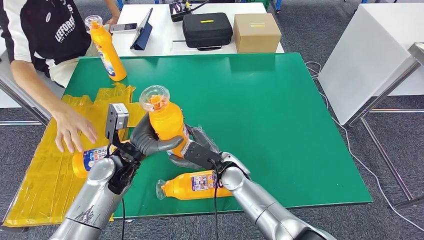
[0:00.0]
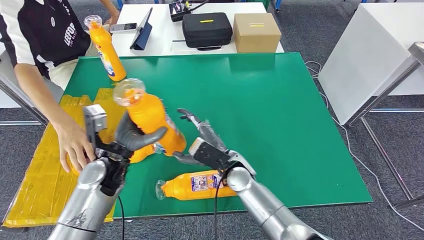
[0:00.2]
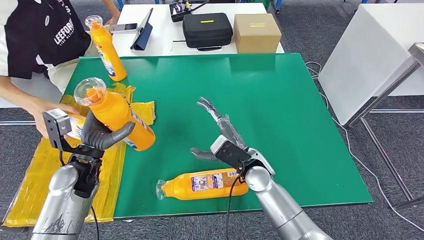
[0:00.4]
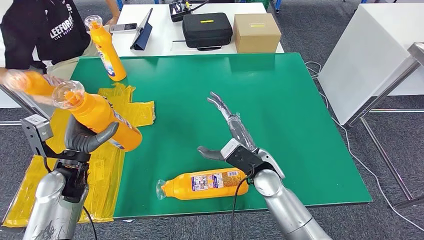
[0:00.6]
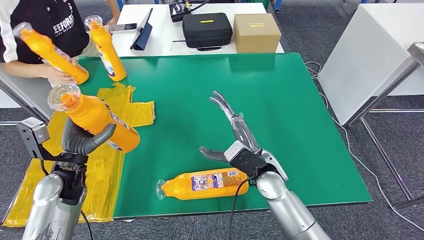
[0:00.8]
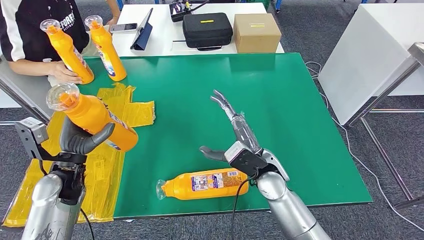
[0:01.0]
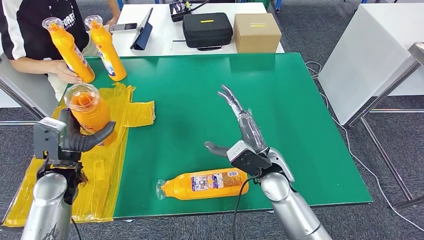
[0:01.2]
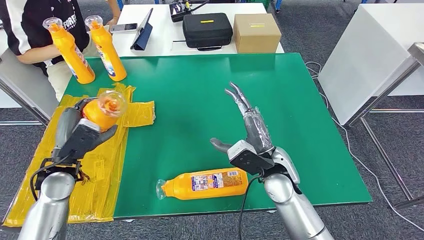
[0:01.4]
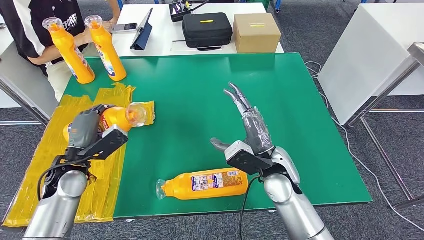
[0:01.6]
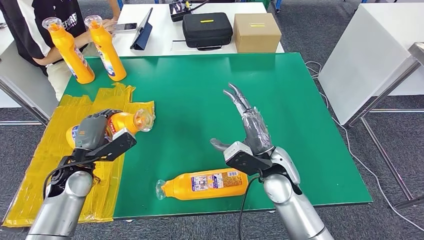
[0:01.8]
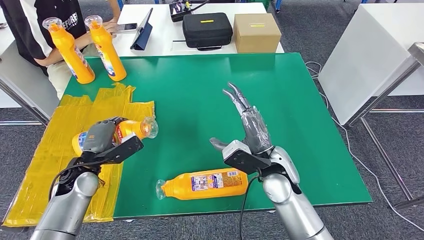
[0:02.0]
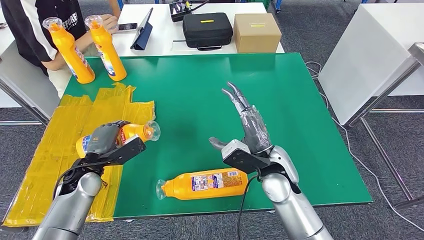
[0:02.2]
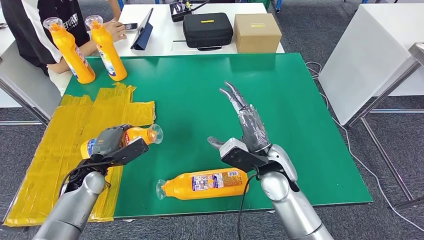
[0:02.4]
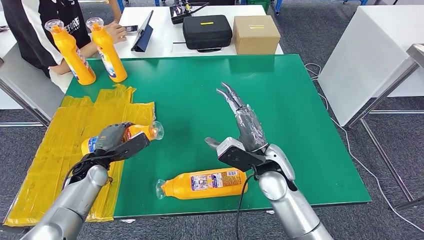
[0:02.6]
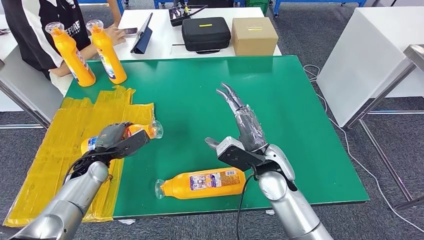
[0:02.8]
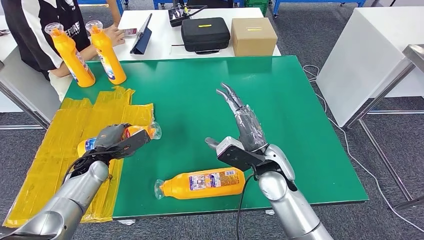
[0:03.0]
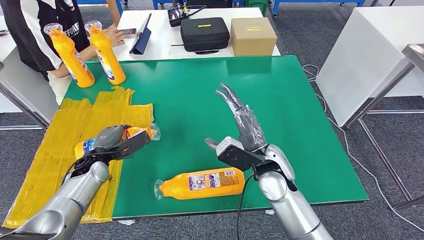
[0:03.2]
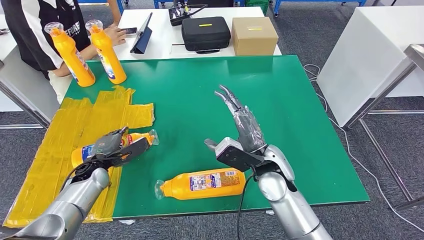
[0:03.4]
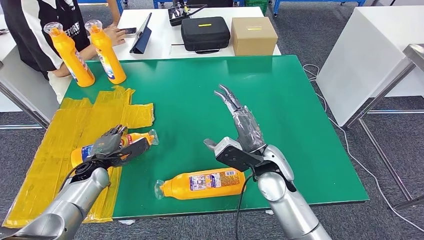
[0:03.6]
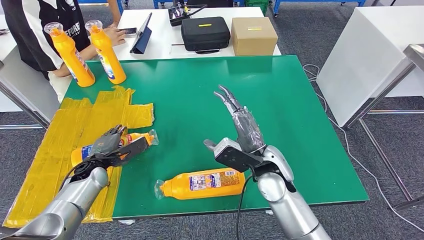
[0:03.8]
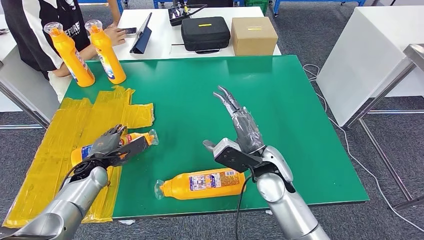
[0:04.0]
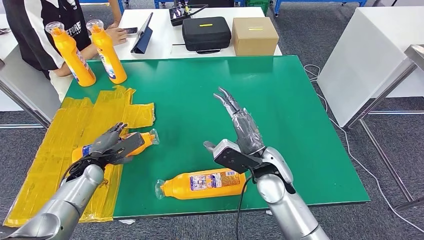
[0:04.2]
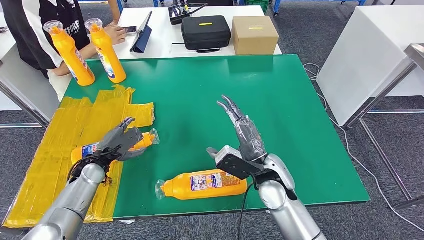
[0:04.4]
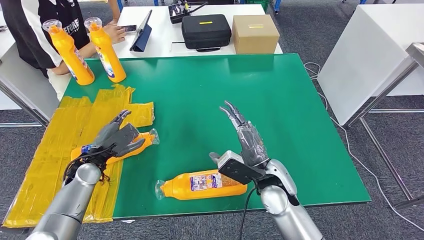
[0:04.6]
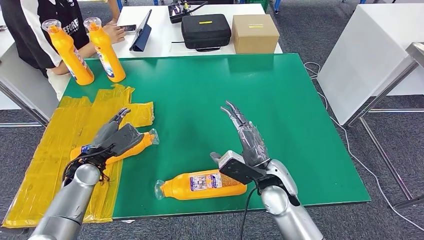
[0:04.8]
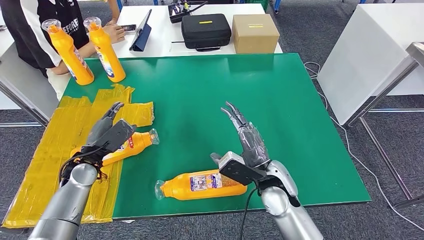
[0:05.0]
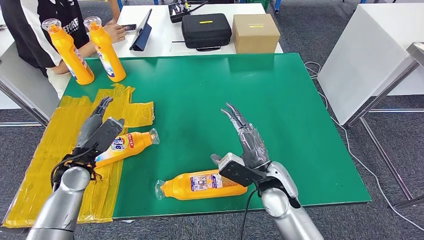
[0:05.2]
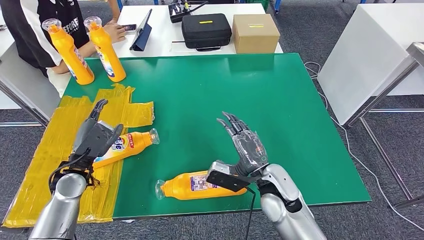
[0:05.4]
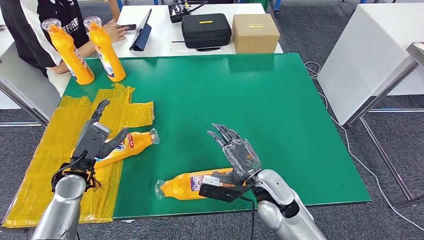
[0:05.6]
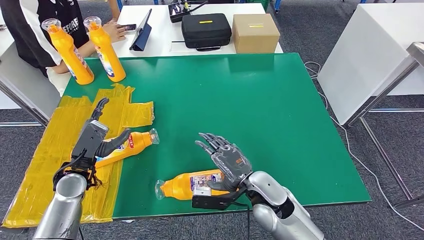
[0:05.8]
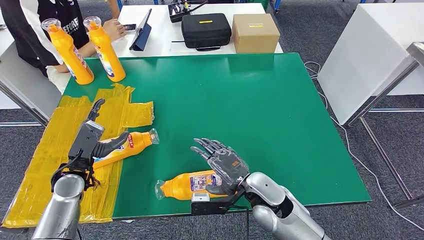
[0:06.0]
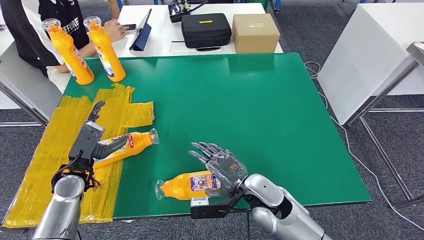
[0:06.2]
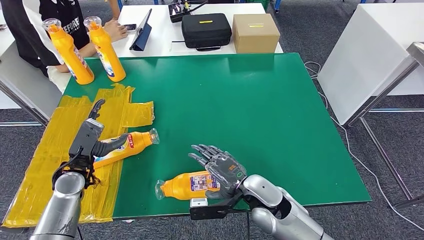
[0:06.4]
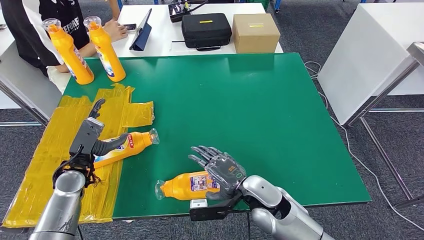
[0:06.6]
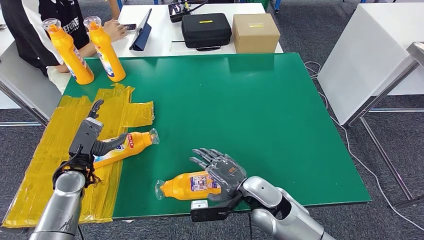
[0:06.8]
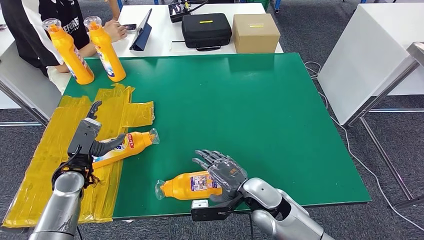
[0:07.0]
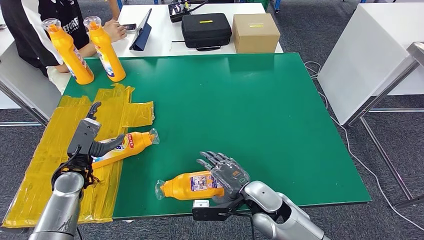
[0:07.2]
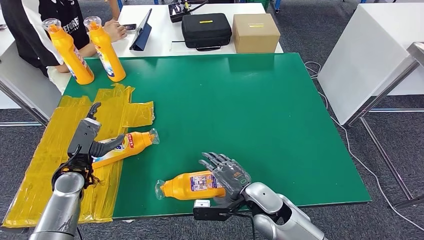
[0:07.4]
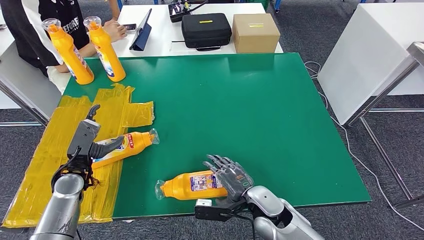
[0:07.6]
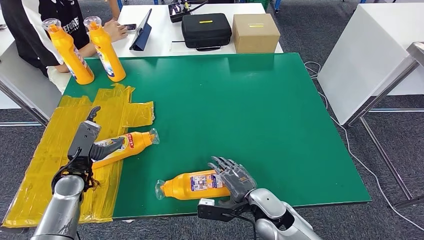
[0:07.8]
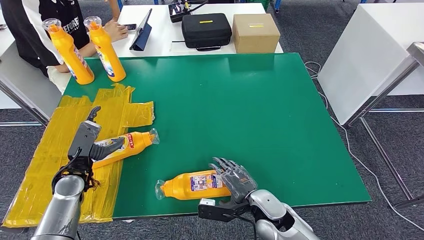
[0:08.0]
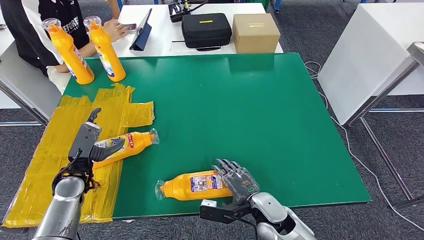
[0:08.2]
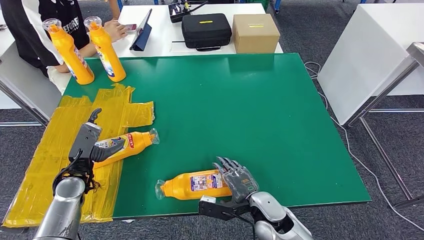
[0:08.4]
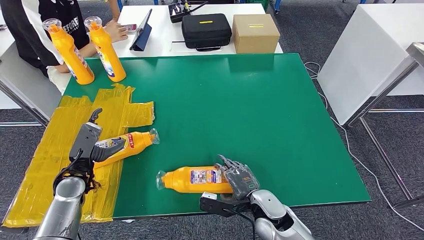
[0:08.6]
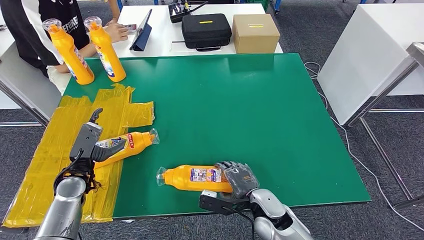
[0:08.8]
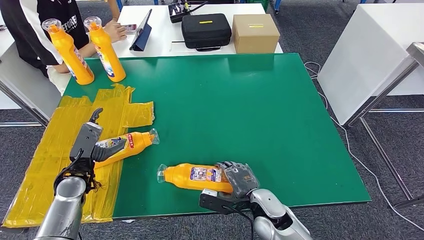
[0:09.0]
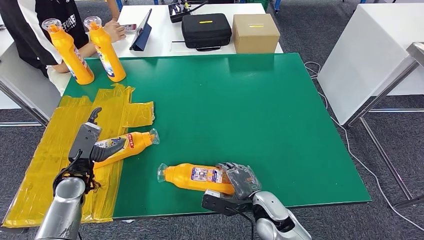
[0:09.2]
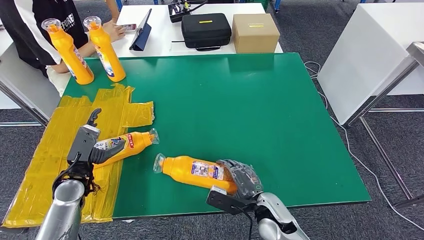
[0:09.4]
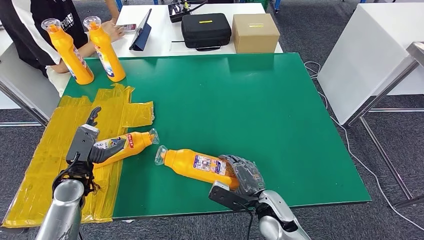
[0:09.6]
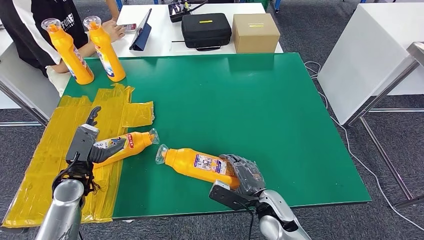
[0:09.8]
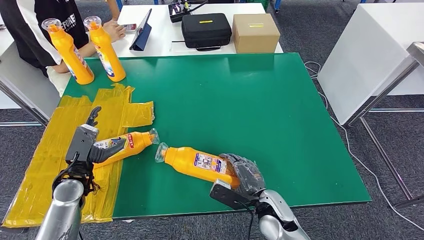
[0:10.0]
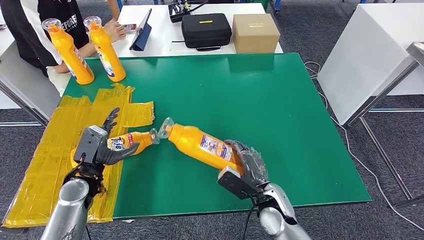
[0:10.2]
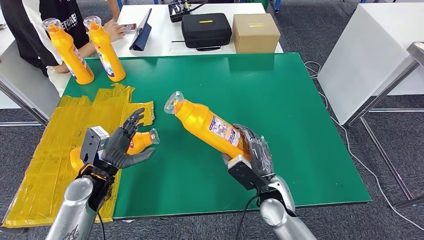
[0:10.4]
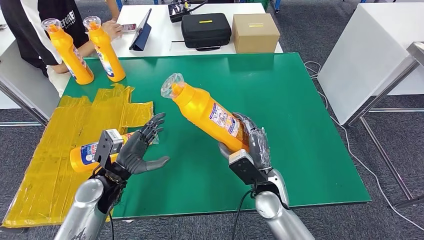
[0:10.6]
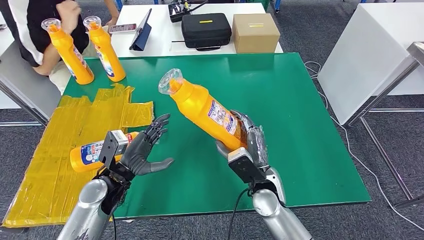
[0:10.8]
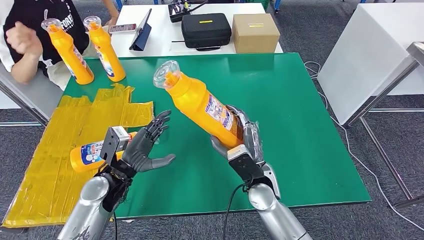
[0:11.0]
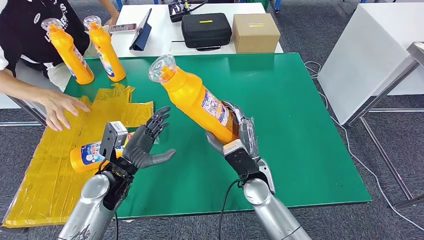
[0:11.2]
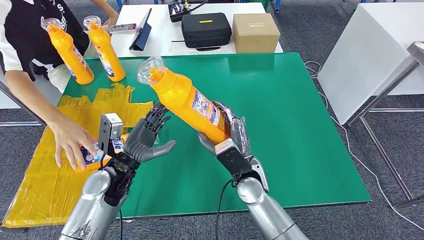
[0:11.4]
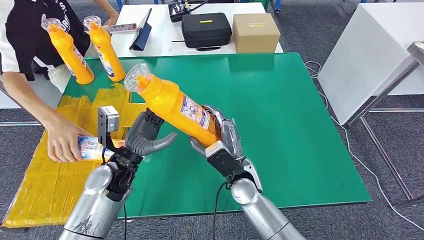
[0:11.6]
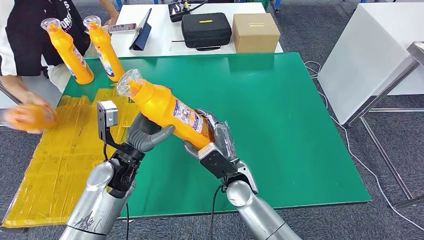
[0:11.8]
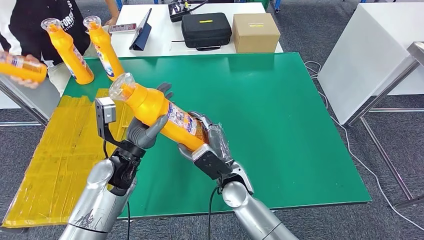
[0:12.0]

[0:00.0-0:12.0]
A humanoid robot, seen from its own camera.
Step, 0:00.2 to 0:05.8: Flip the bottle to face forward.
0:03.0 to 0:04.4: The hands stay close to where they were, moving slightly.
0:06.0 to 0:07.6: The right hand changes place by approximately 5 cm.
0:07.6 to 0:09.0: The hands move only a little.
0:09.0 to 0:10.4: The left hand goes roughly 5 cm to the right.

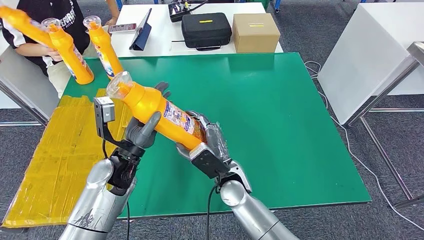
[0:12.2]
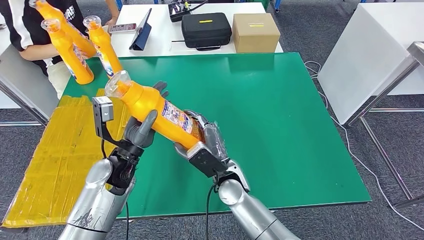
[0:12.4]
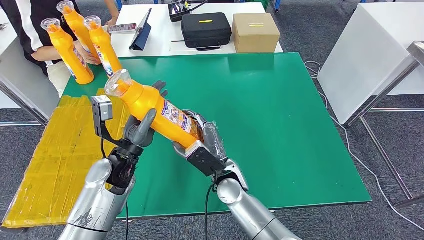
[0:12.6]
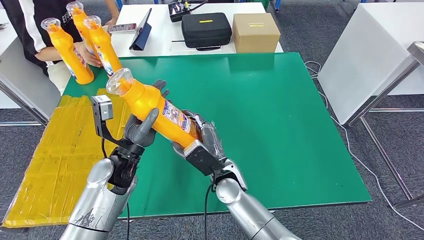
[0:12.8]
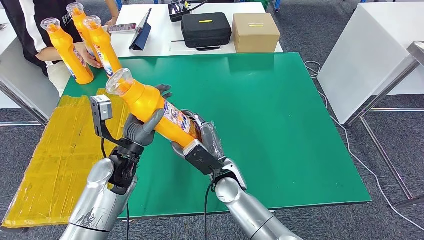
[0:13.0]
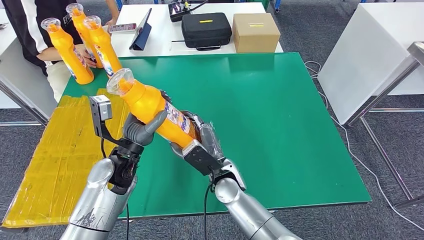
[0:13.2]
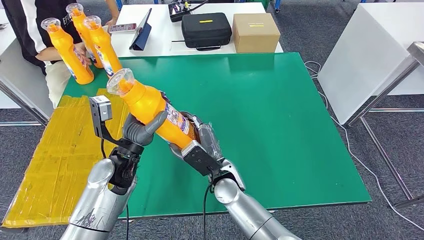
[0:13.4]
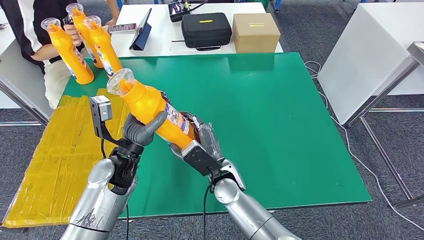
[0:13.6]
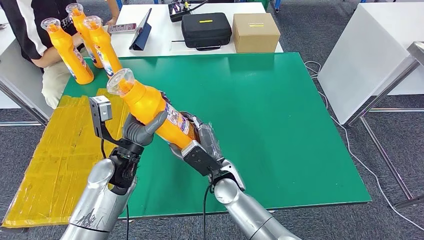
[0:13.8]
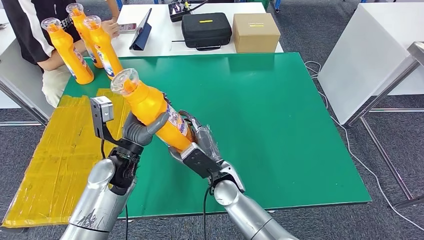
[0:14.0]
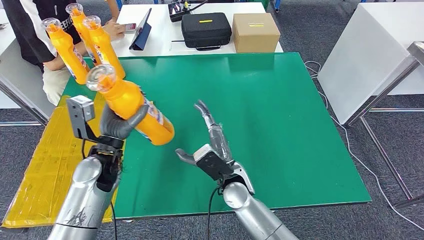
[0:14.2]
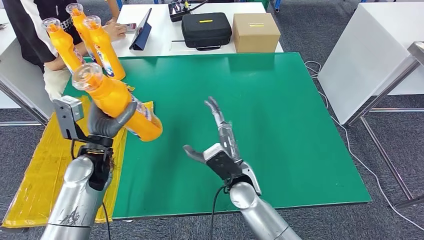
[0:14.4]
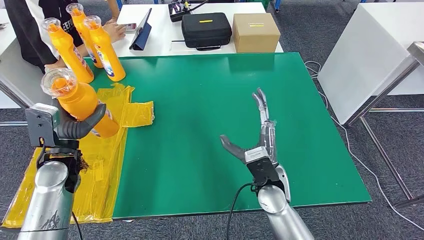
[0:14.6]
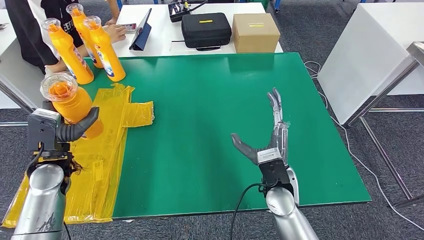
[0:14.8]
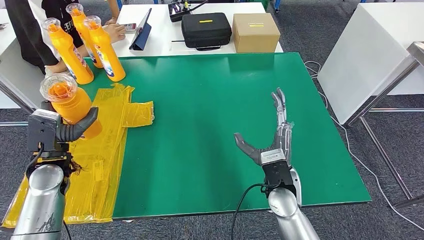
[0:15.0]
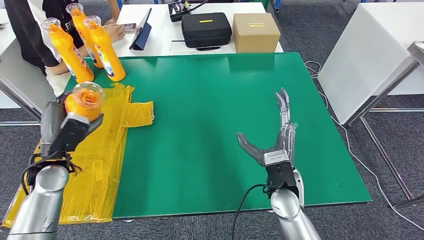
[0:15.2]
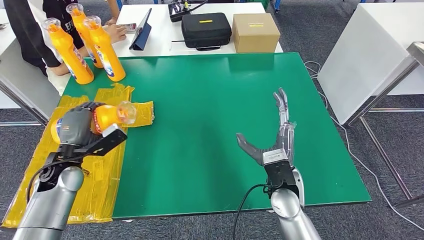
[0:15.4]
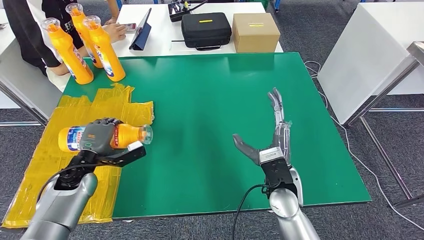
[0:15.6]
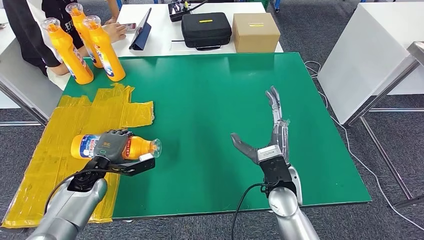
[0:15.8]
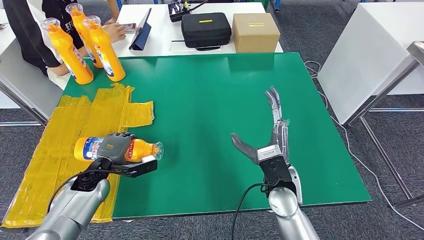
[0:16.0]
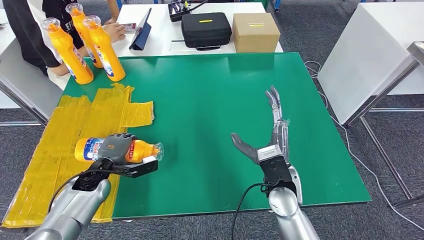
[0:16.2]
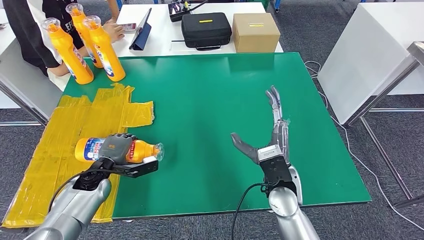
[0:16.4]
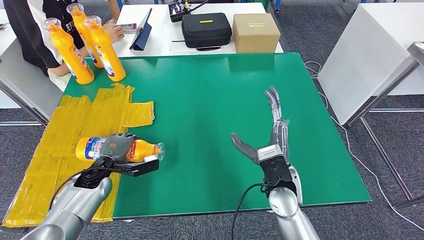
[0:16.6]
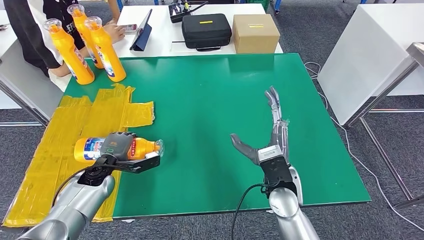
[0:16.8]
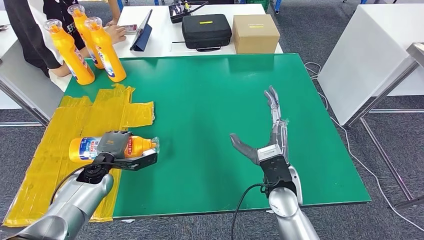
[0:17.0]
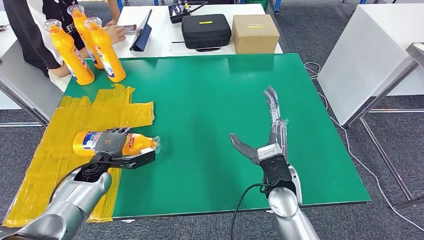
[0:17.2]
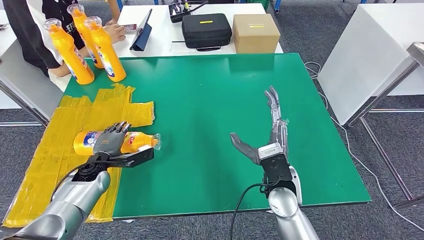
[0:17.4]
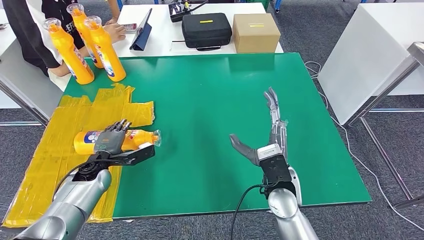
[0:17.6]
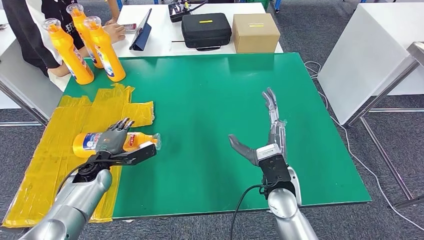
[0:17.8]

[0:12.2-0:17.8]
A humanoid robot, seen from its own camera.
0:12.2 to 0:13.6: The hands stay close to where they were, moving slightly.
0:15.0 to 0:16.4: The left hand heads downward and to the right, covering approximately 10 cm.
0:16.4 to 0:17.8: The hands stay close to where they were, moving slightly.
